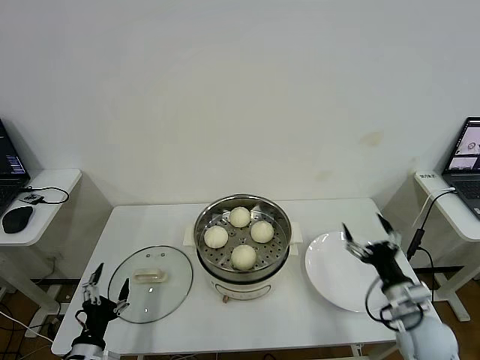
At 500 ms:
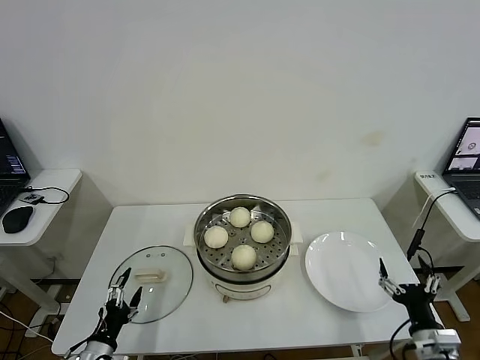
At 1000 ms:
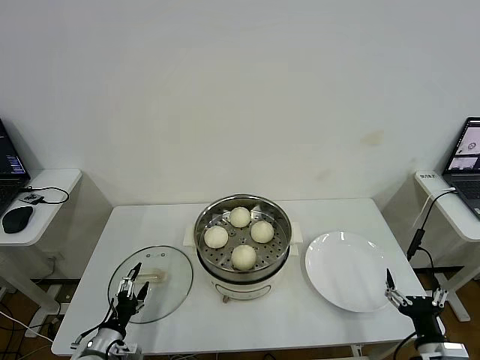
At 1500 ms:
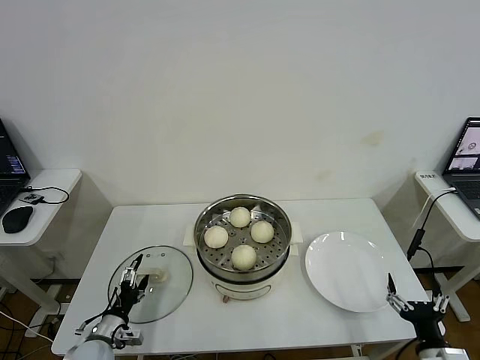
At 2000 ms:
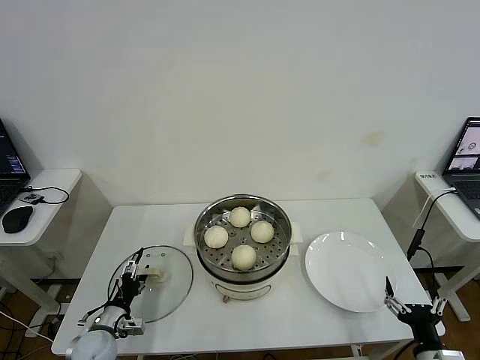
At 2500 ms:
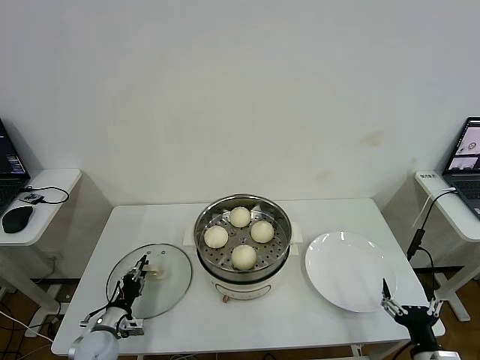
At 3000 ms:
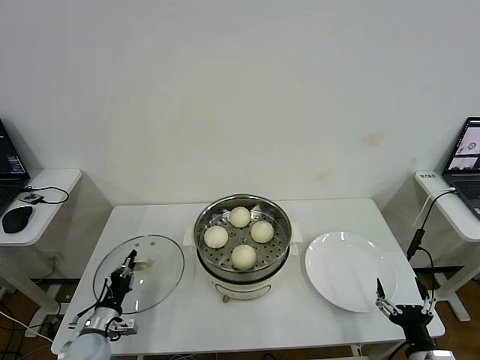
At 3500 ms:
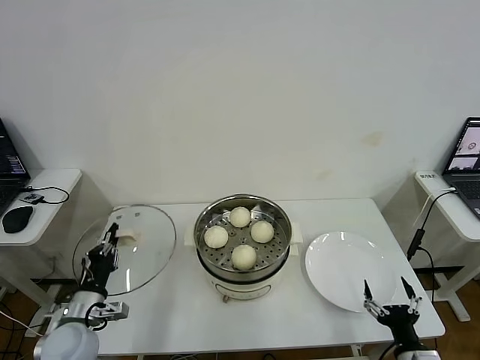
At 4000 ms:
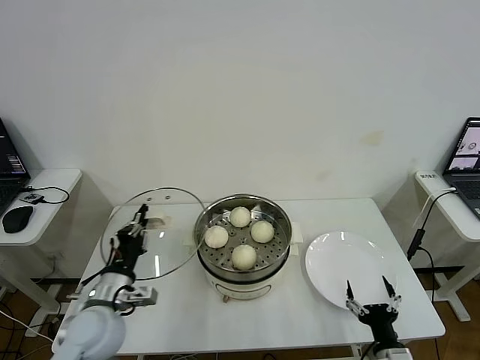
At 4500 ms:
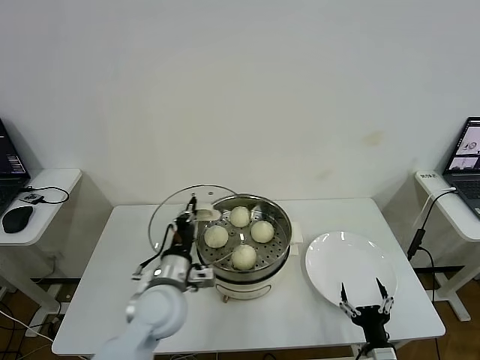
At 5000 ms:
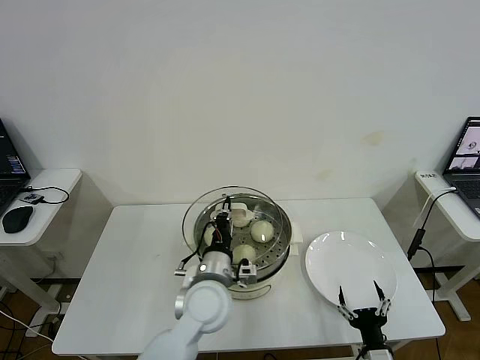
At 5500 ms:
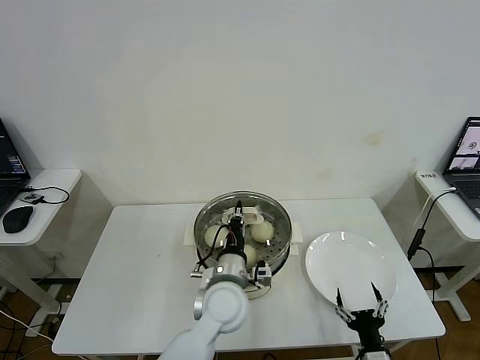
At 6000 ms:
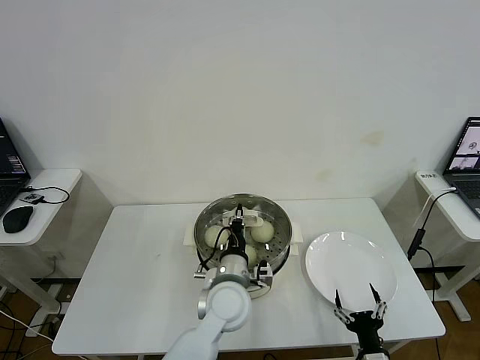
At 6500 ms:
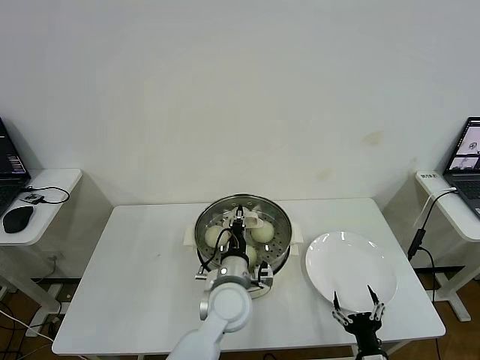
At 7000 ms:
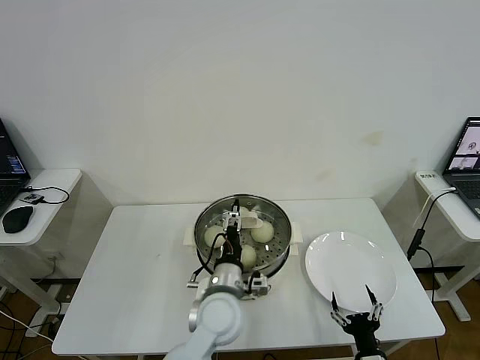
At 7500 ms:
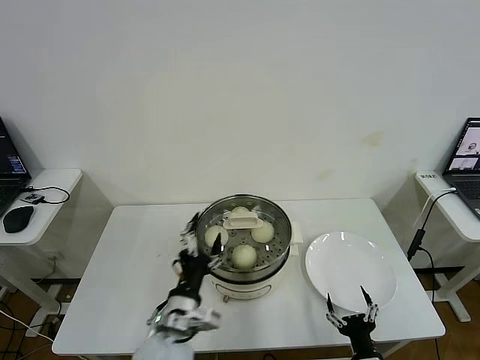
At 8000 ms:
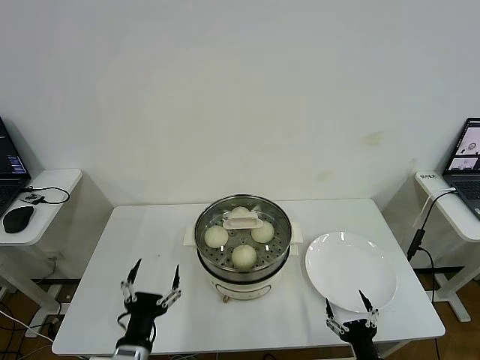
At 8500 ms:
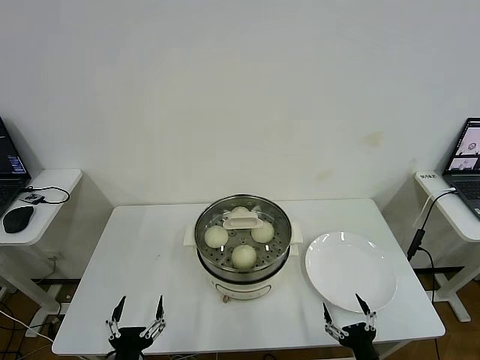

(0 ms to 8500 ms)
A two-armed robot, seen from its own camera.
Step, 0 ms - 2500 ms: Grasp the pot lid with left gripper.
Step, 3000 ms - 6500 ms: Place the pot lid on the steamer with left gripper.
0 ms - 2000 ms: The left gripper is displaced forward and downward by about 10 cm, while the right gripper shifts approximately 10 cm backward.
2000 ms - 4000 ms: The left gripper goes some 20 cm upward and to the right, and closes up. Meanwhile the right gripper moves to the left, about 5 cm.
4000 ms - 6500 ms: The left gripper is displaced to the right by roughly 25 cm.
6500 ms - 8500 ms: The left gripper moves backward and to the left, approximately 30 cm, and opens its fingers.
